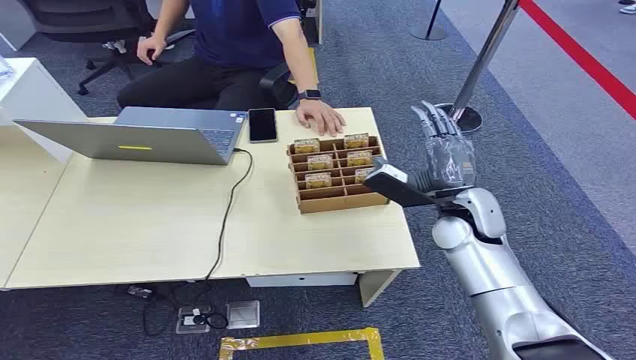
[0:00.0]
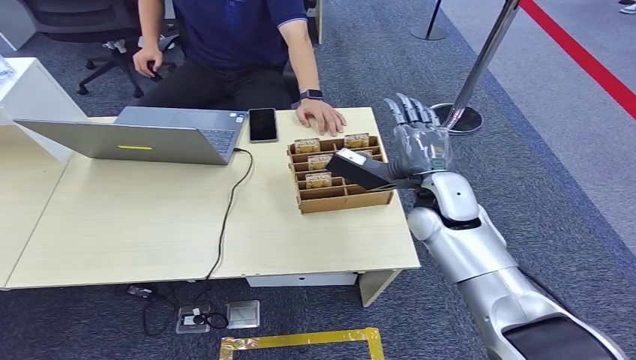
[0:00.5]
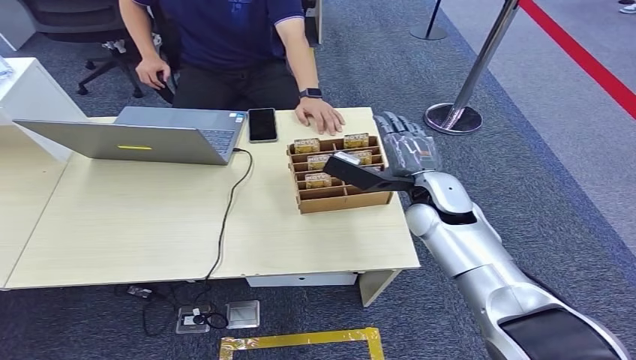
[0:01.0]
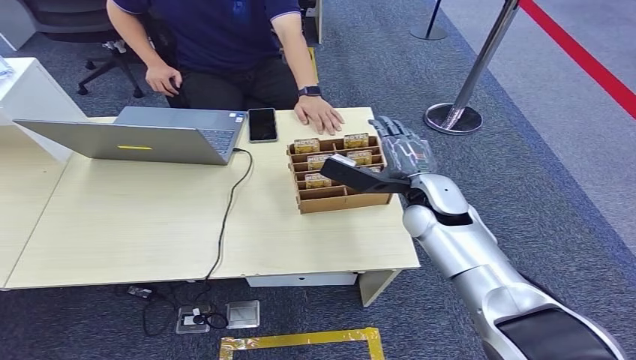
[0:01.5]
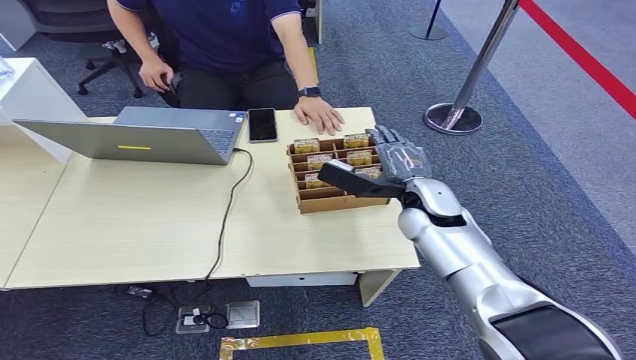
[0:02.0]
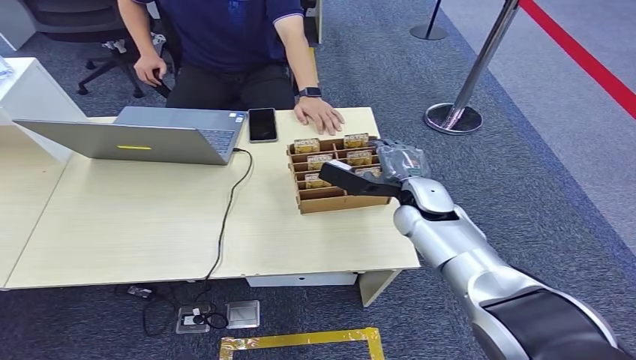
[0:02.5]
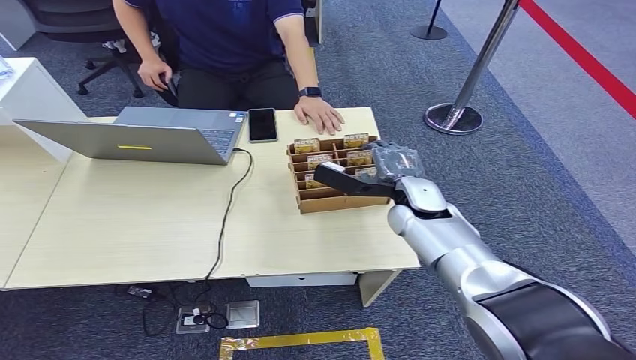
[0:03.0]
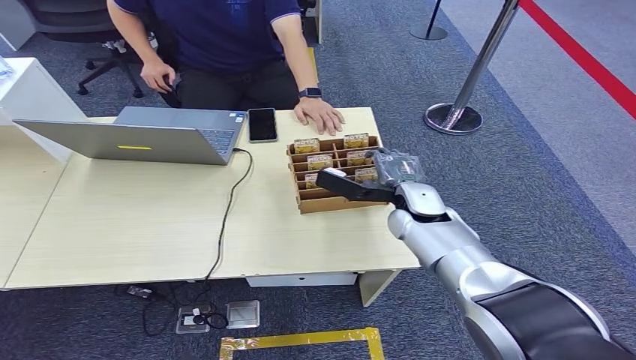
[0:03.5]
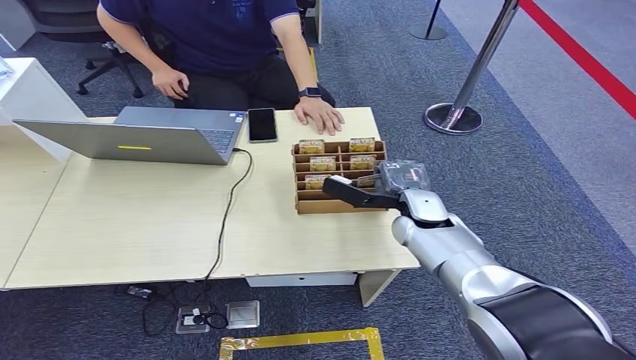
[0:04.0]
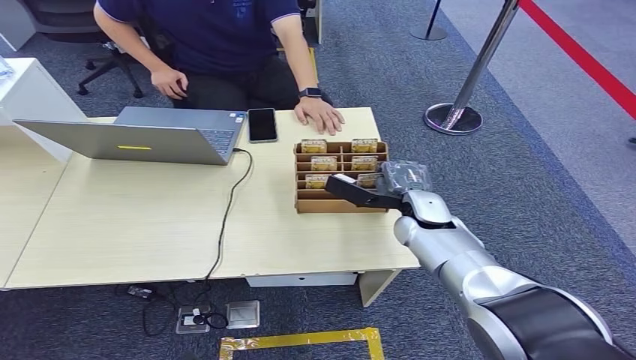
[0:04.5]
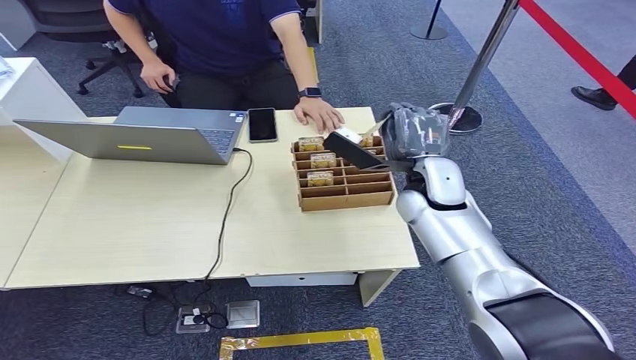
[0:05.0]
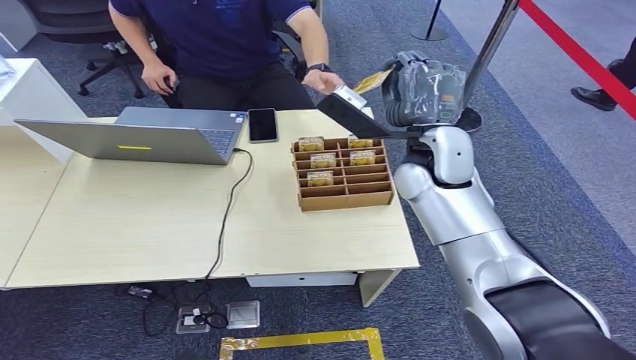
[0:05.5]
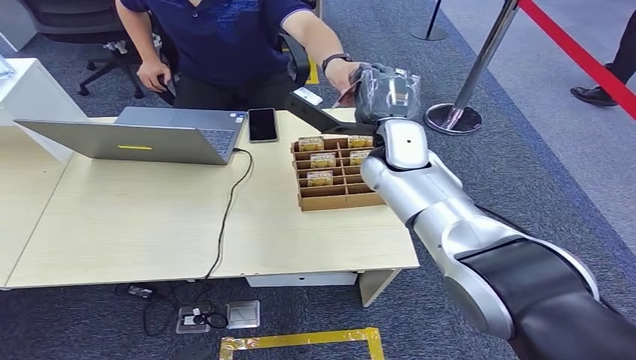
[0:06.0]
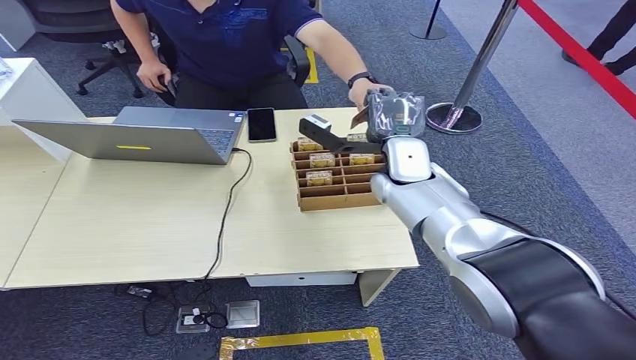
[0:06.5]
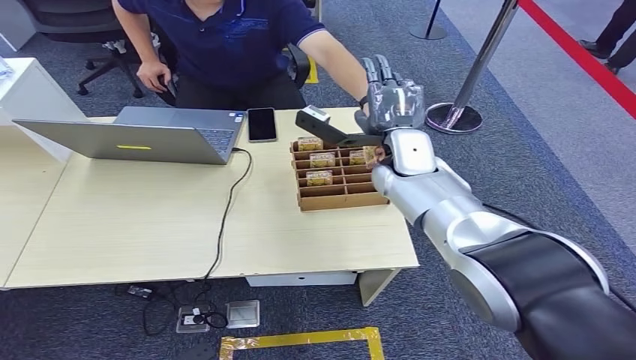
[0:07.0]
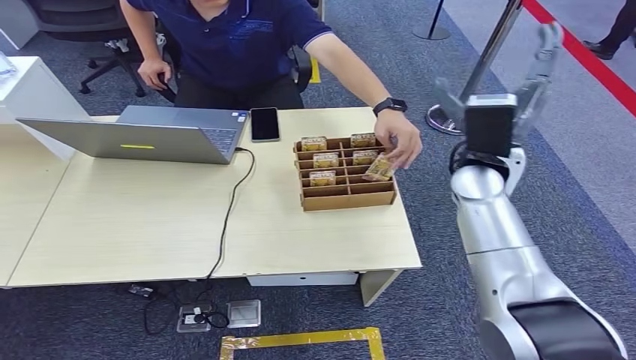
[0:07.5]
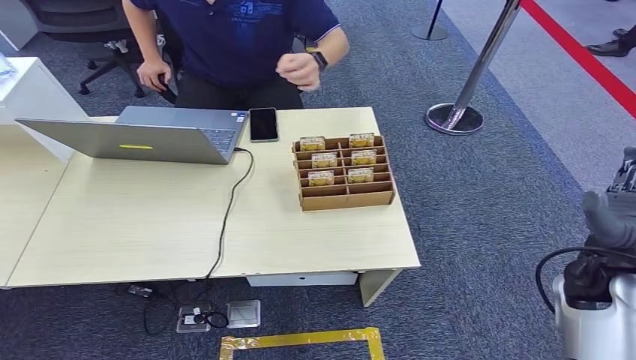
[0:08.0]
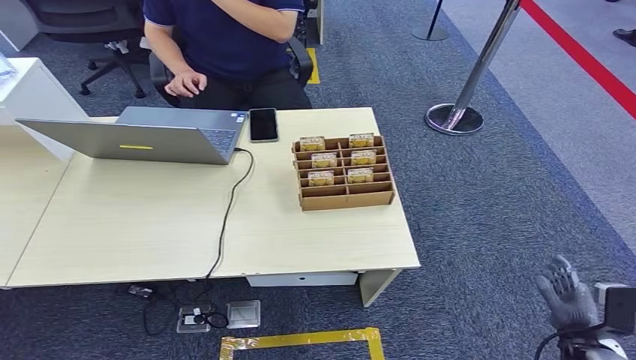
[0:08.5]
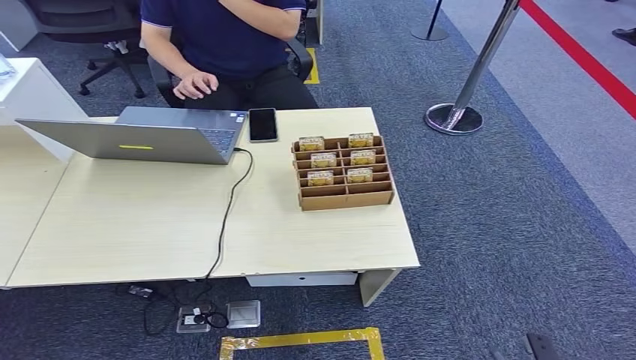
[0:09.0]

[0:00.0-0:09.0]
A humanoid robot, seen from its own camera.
Step, 0:00.0 to 0:04.5: Pick up the room card from the card holder.
Step, 0:05.0 to 0:09.0: Hand the room card to the target.
0:02.0 to 0:04.5: The right hand travels downward by about 5 cm.
0:07.0 to 0:09.0: The left hand moves about 5 cm. Meanwhile the right hand heads backward, downward and to the right, covering about 60 cm.
